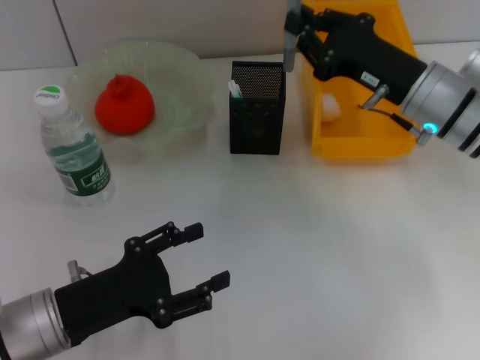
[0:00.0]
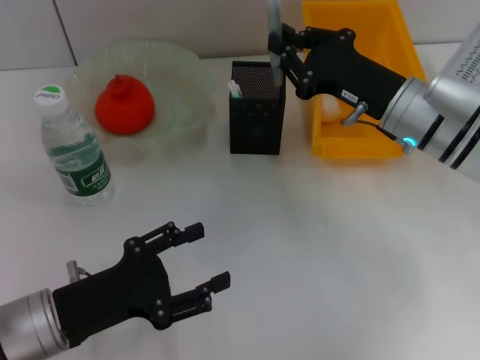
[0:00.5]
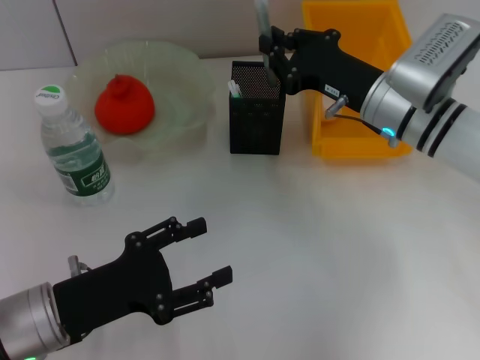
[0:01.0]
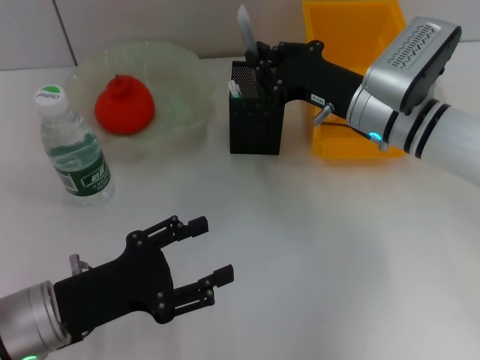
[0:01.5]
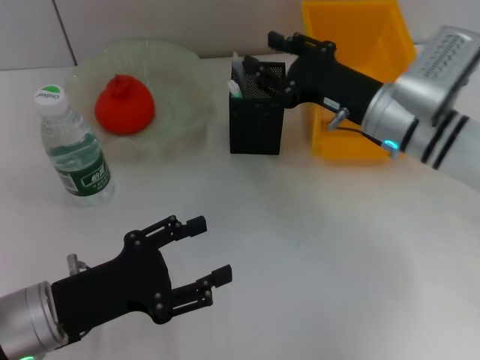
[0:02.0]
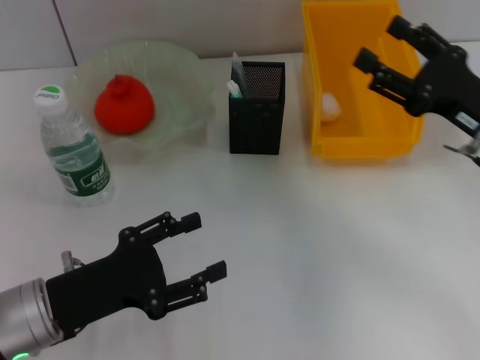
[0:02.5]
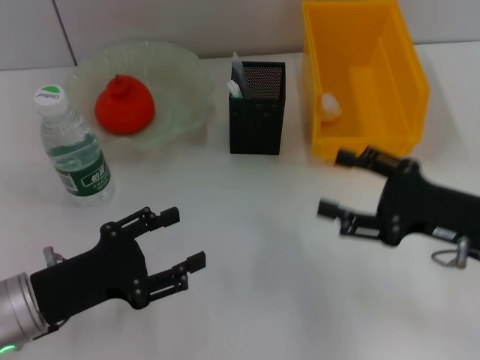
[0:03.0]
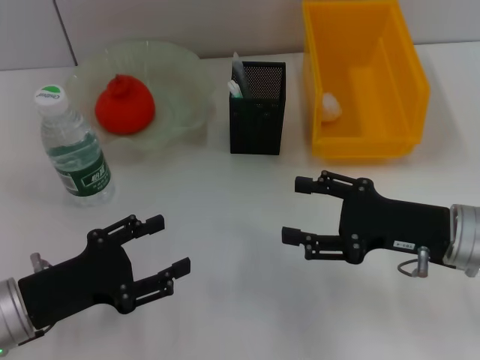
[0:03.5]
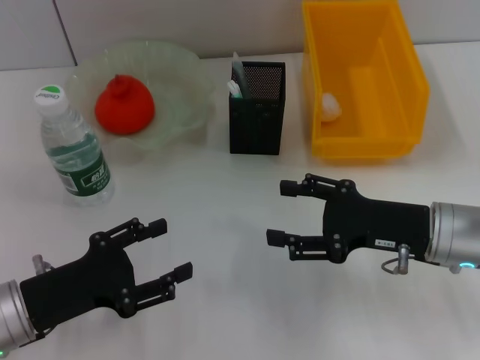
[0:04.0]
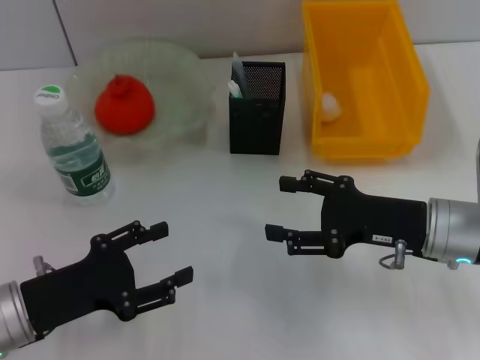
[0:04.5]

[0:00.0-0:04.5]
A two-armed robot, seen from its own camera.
0:00.0 to 0:02.0: The grippers make only small movements.
0:02.0 to 0:04.5: The right gripper goes about 10 cm backward, and opens its fingers.

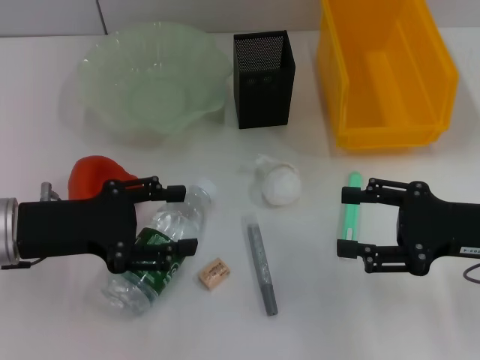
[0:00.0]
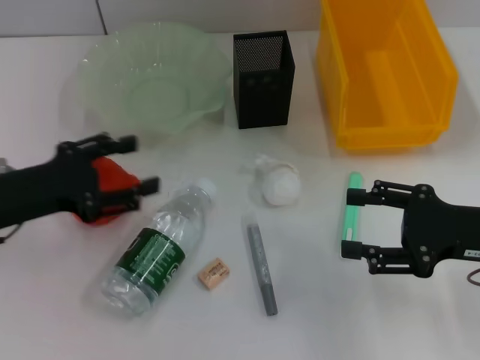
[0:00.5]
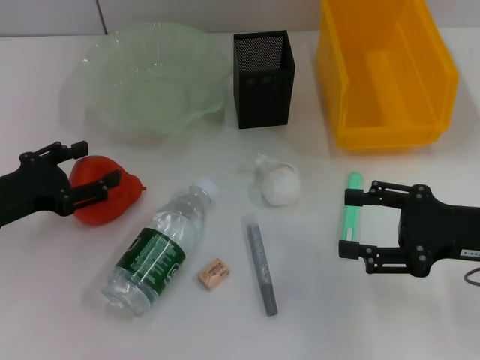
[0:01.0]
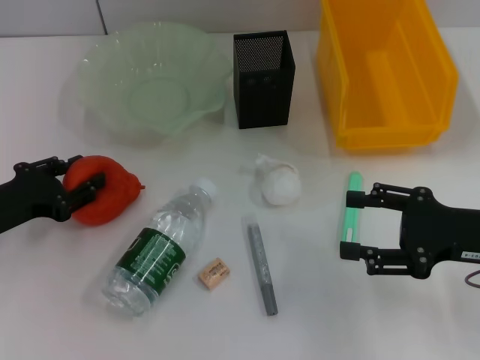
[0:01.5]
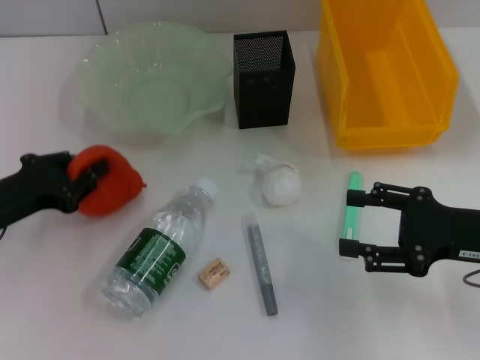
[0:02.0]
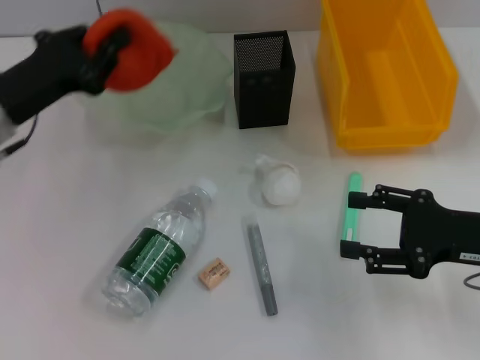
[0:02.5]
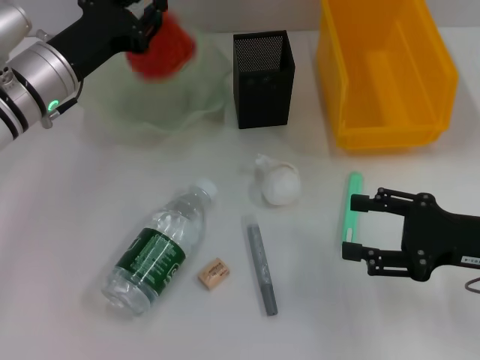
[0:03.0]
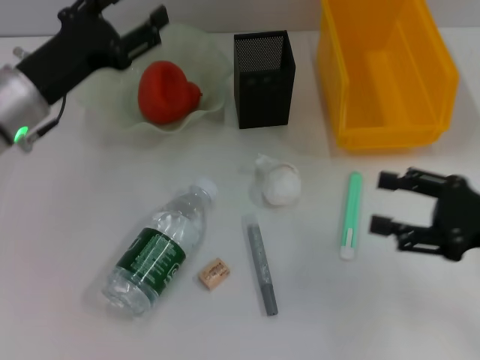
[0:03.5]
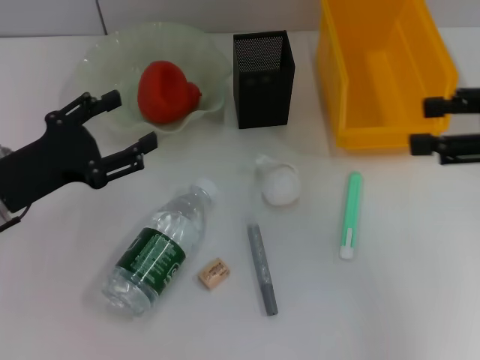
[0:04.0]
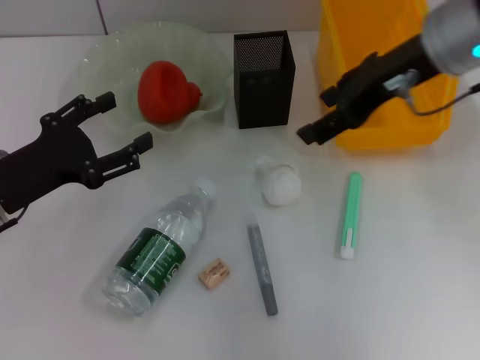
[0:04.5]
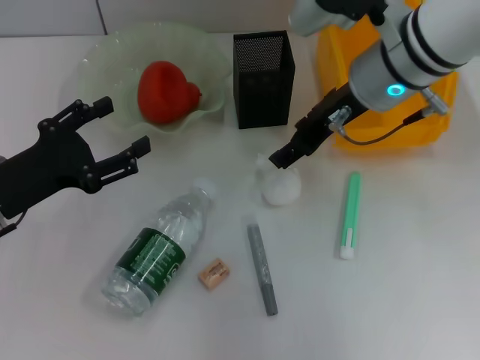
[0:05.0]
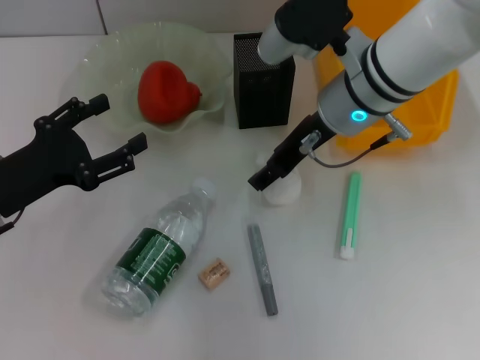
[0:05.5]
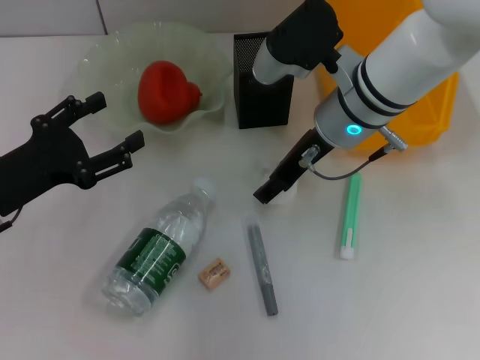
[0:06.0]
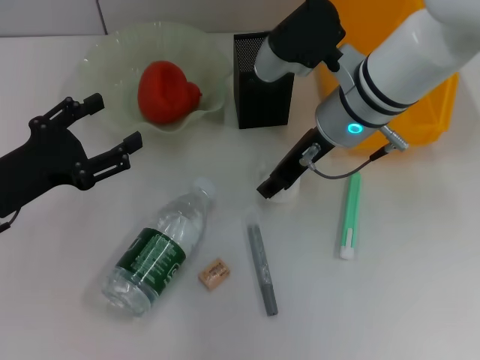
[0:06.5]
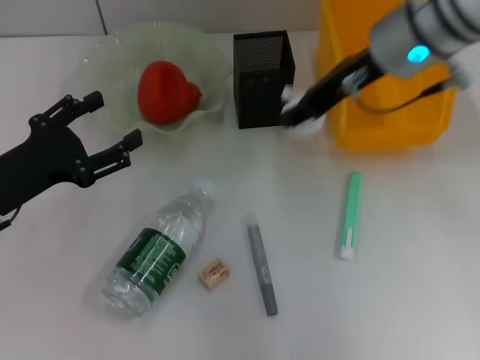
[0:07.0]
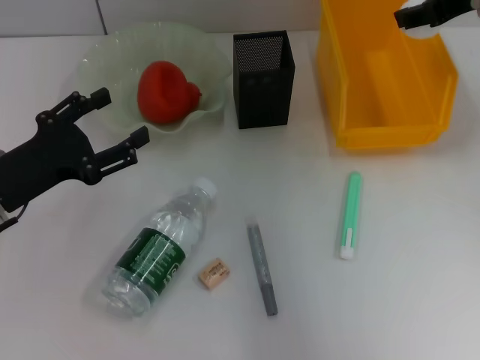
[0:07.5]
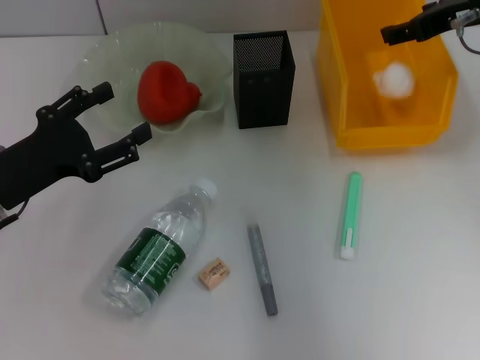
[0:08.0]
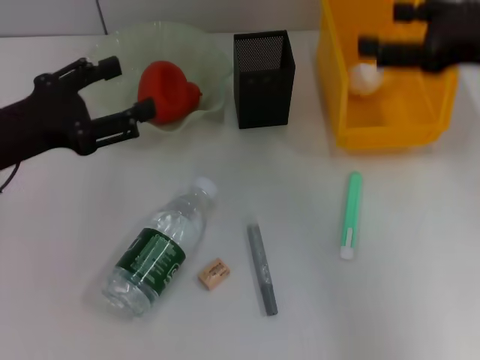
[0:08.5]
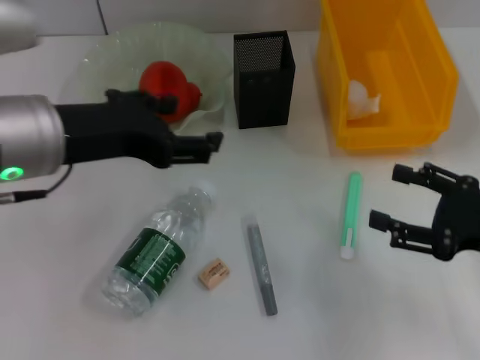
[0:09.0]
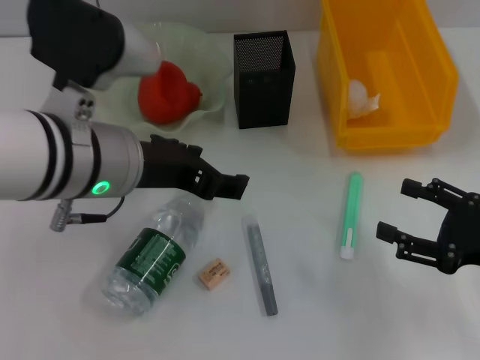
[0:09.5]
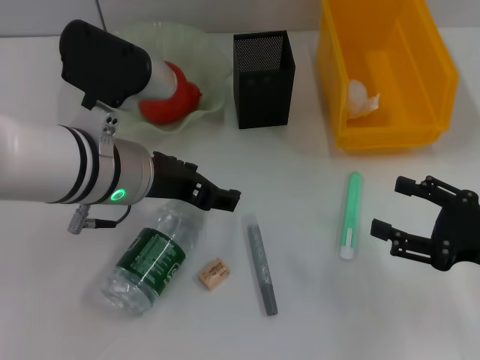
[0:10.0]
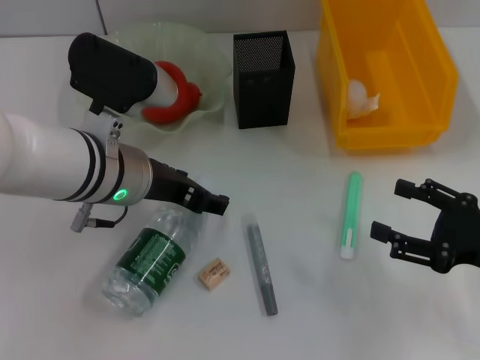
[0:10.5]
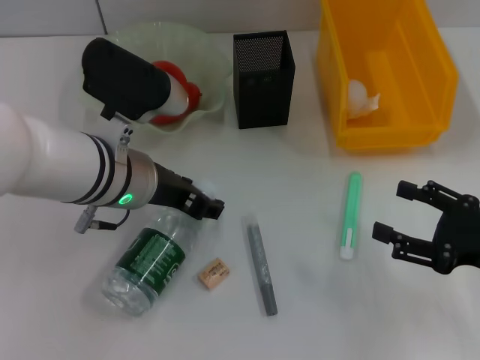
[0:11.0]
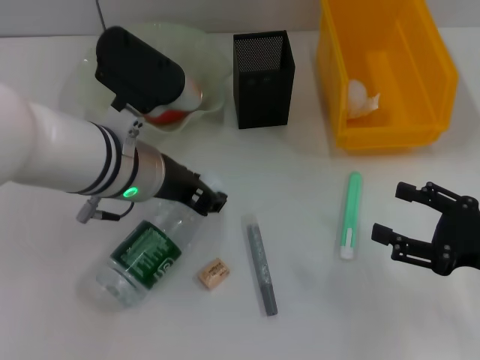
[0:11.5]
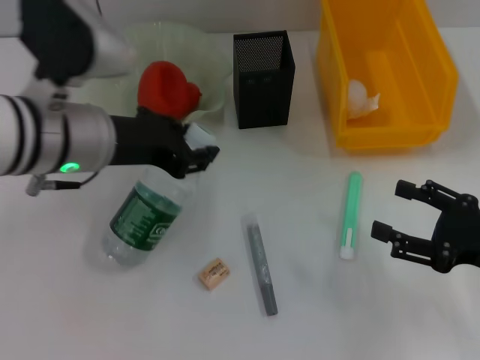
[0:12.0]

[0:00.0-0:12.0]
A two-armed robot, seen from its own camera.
Step, 0:00.0 to 0:01.5: Grab the orange with the left hand.
Step, 0:02.0 to 0:03.5: Place the orange into the fruit bowl with the left hand.
Step, 0:04.5 to 0:06.0: Grab the paper ball with the right hand.
Step, 0:06.5 to 0:08.0: Place the paper ball into the trash can with the right hand.
Step, 0:08.5 to 0:11.0: Grab the water bottle with the left hand.
0:00.0 to 0:02.0: The left gripper heads to the left, covering approximately 5 cm, and closes its fingers.
0:02.0 to 0:04.0: The left gripper travels forward and back again, about 10 cm each way, and opens up; the right gripper shifts roughly 15 cm upward.
0:04.0 to 0:06.0: The right gripper heads to the left and forward, covering roughly 25 cm.
0:06.0 to 0:08.0: The right gripper is displaced to the right and upward by roughly 15 cm.
0:08.0 to 0:10.0: The right gripper is displaced backward and downward by about 25 cm. The left gripper is displaced to the right and upward by some 15 cm.
0:10.0 to 0:12.0: The left gripper closes.

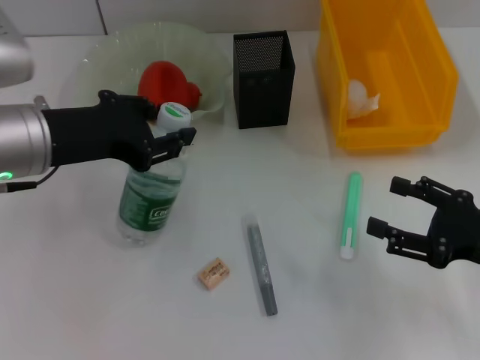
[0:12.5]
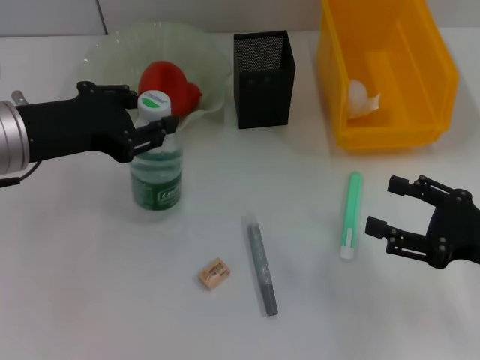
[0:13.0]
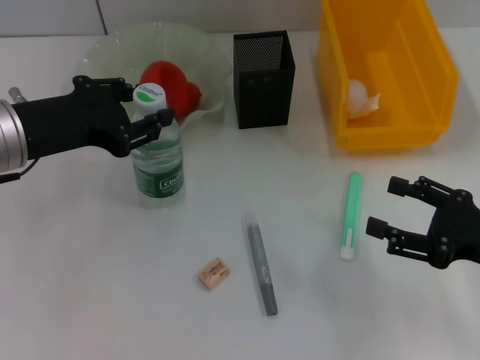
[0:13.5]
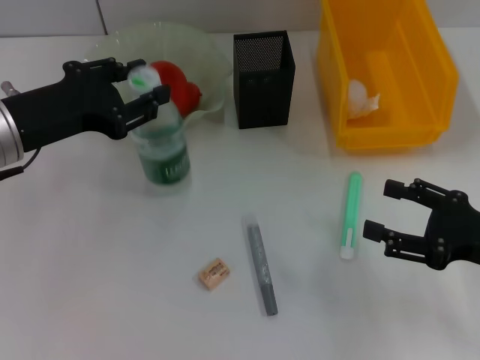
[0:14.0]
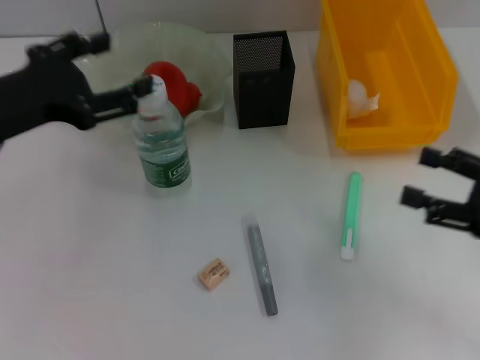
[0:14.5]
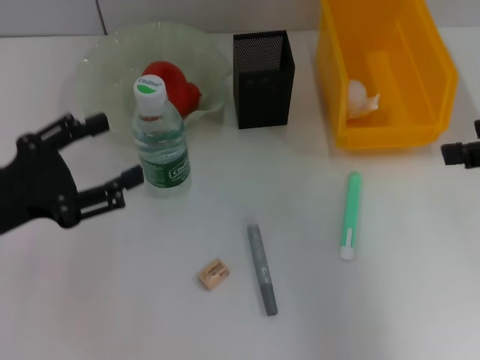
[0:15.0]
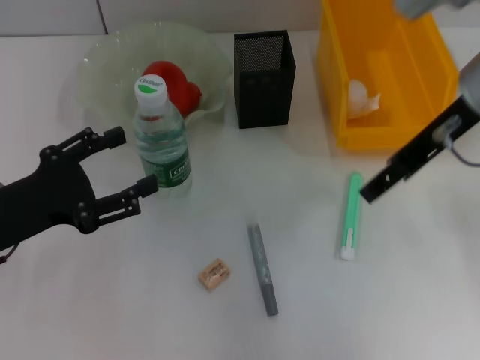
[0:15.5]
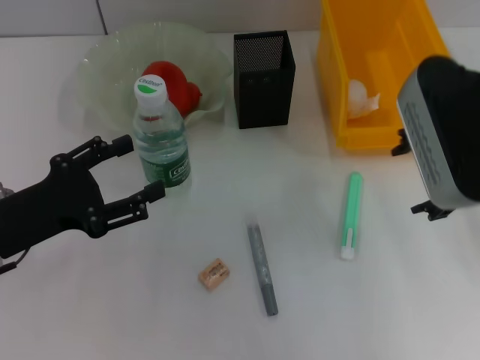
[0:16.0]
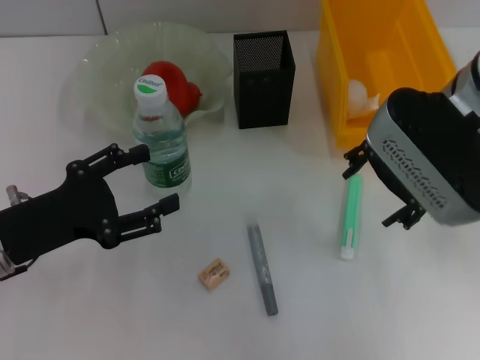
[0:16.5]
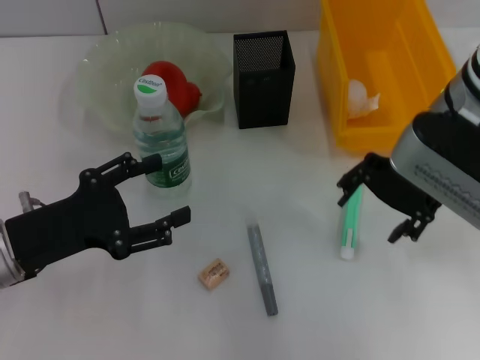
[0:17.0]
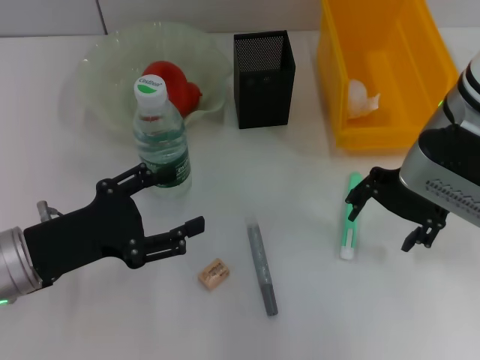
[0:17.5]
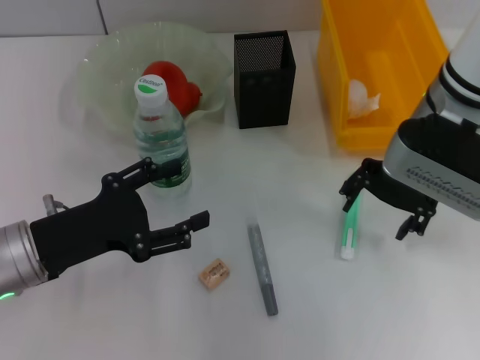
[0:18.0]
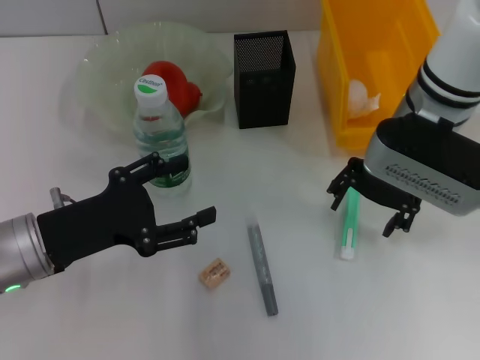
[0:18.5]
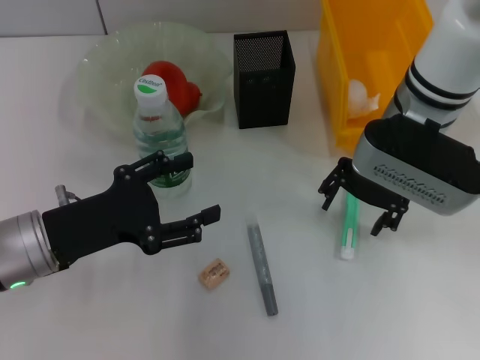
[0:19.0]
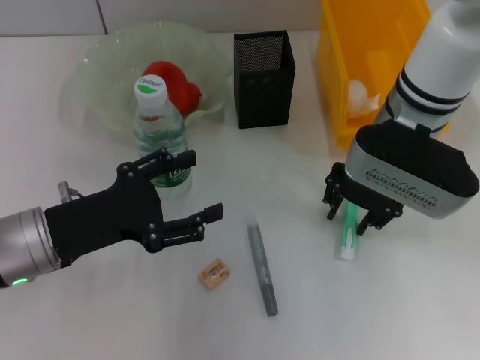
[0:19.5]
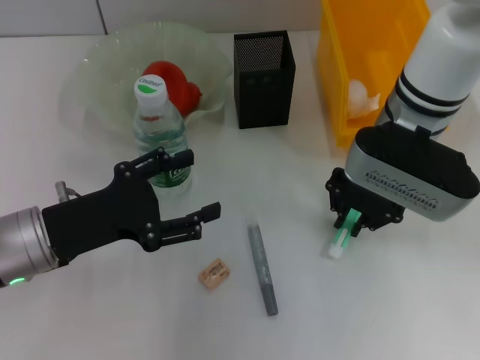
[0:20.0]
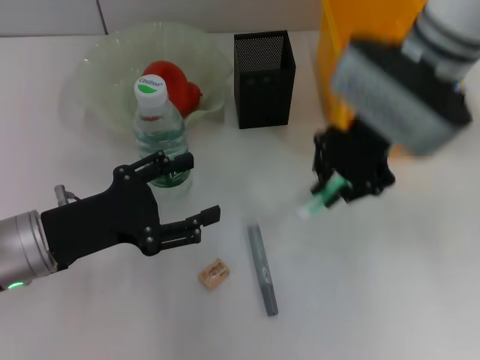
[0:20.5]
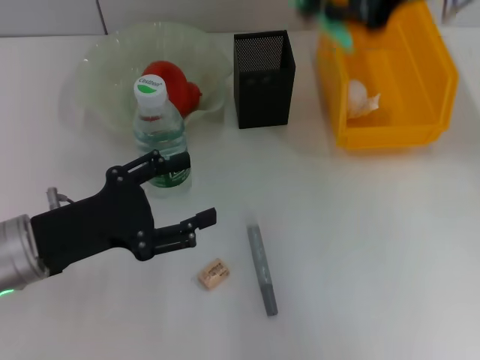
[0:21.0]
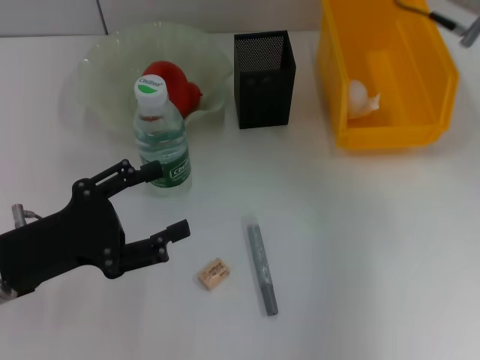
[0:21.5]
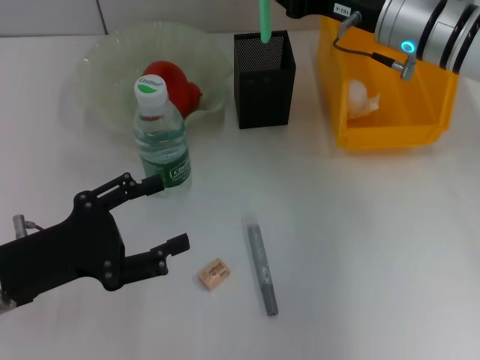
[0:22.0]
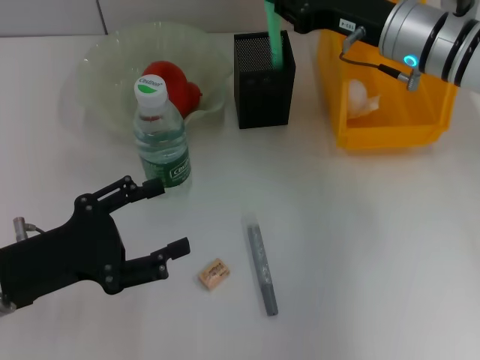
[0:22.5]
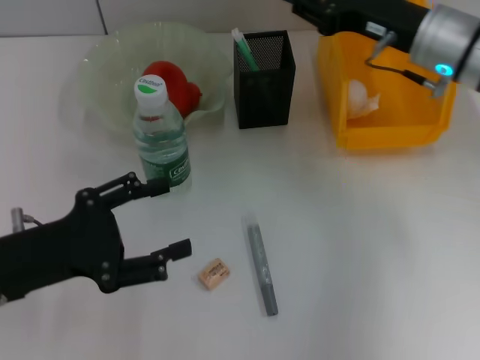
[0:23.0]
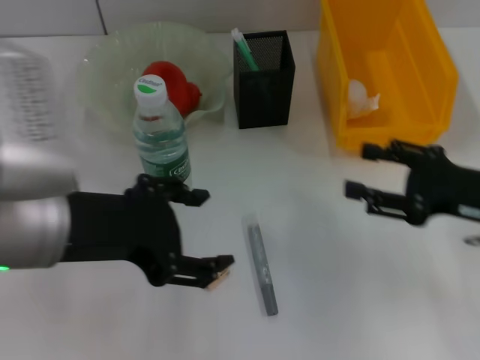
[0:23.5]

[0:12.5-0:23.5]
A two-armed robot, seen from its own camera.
Step, 0:12.5 to 0:14.5: Place the water bottle on the table with the left hand.
Step, 0:15.0 to 0:19.5: Grab the blue utility knife with the right hand.
Step, 0:20.5 to 0:23.0: Place the blue utility knife into the pen holder with the right hand.
0:12.5 to 0:14.5: The left gripper opens up.
0:14.5 to 0:16.0: The right gripper heads to the left, upward and forward, covering about 20 cm. The left gripper shifts about 10 cm downward.
0:16.0 to 0:18.0: The right gripper goes approximately 10 cm forward and downward.
0:18.0 to 0:20.0: The right gripper closes its fingers.
0:20.0 to 0:21.5: The right gripper is displaced to the right and upward by approximately 10 cm.
0:21.5 to 0:23.5: The left gripper goes some 15 cm upward and to the right. Meanwhile the right gripper heads backward, downward and to the right, covering about 20 cm, and opens up.
